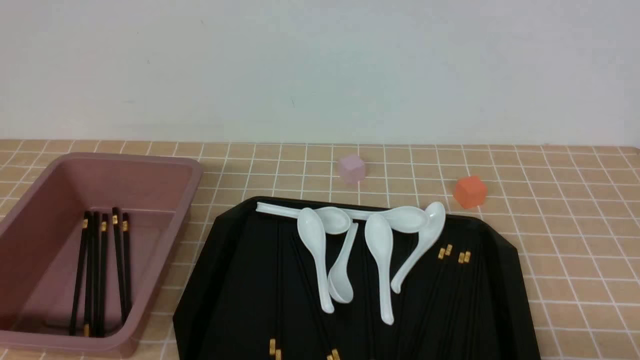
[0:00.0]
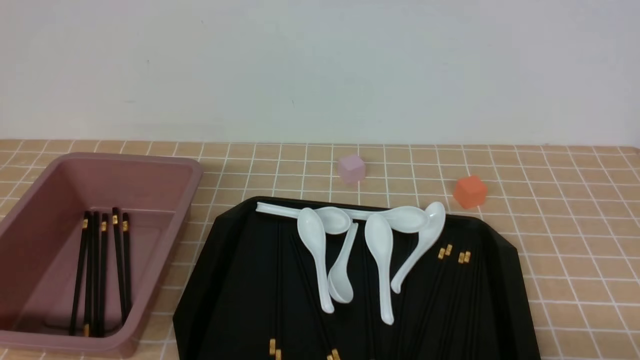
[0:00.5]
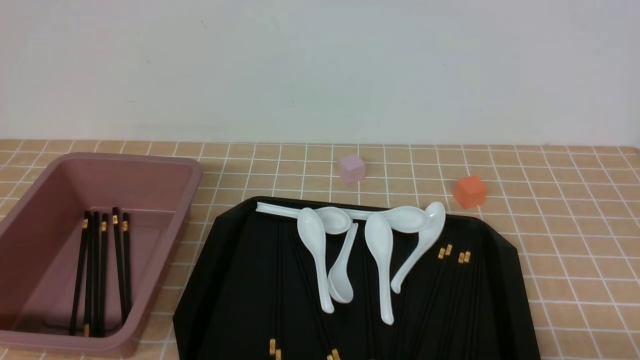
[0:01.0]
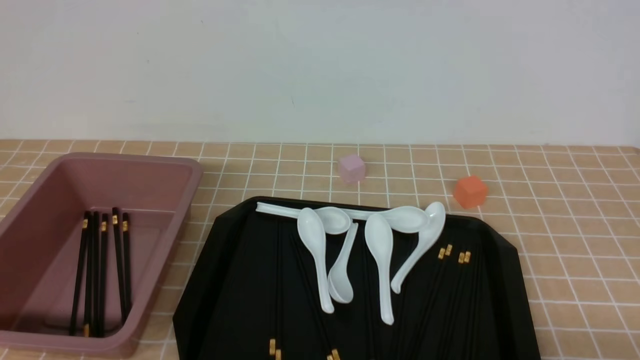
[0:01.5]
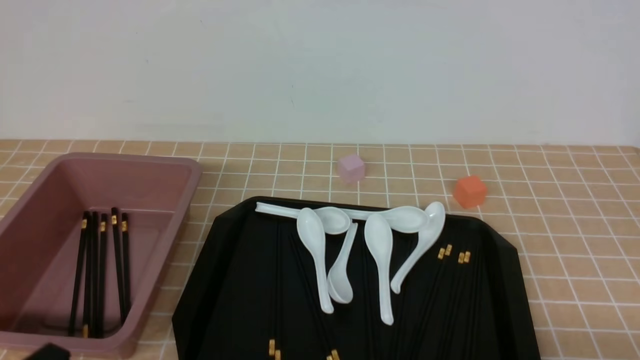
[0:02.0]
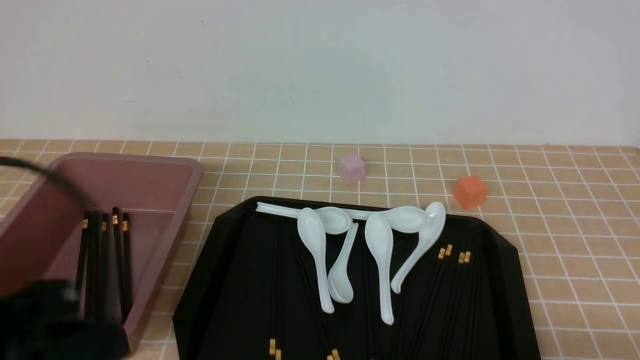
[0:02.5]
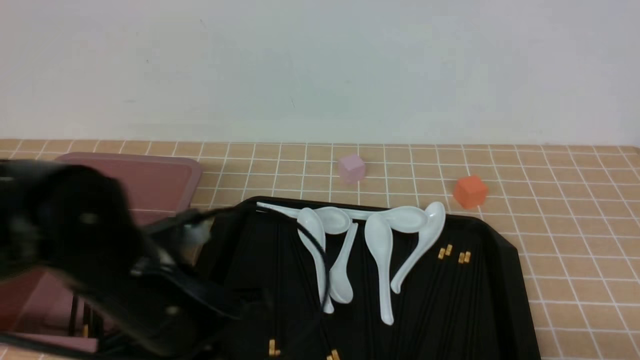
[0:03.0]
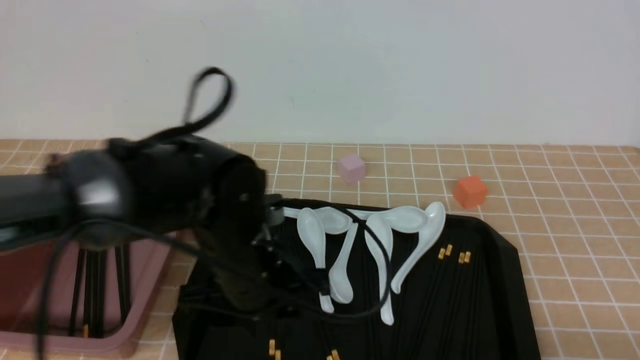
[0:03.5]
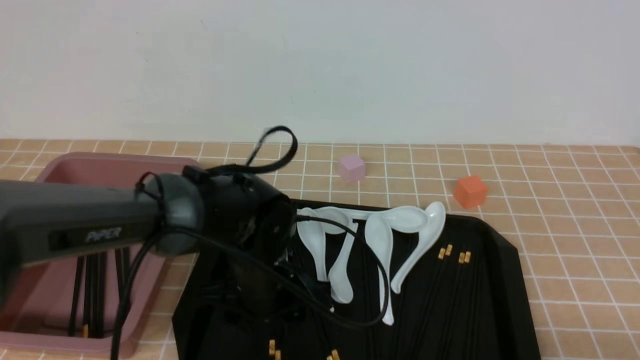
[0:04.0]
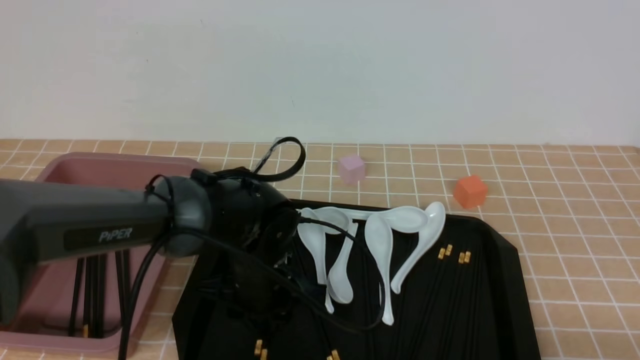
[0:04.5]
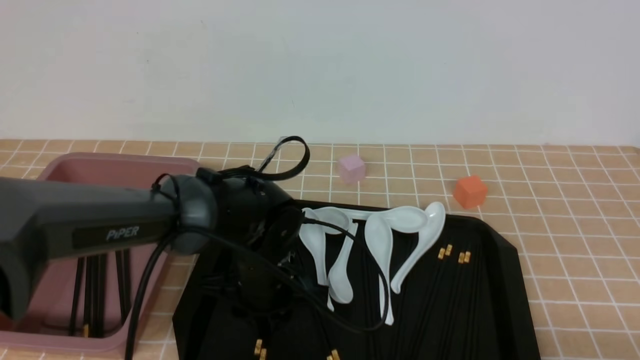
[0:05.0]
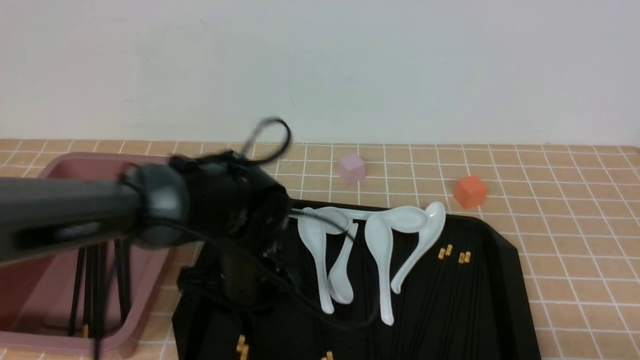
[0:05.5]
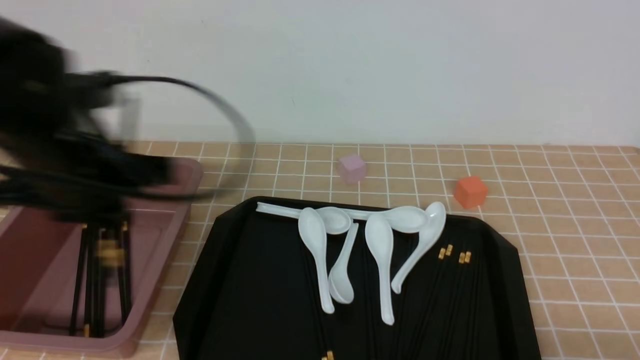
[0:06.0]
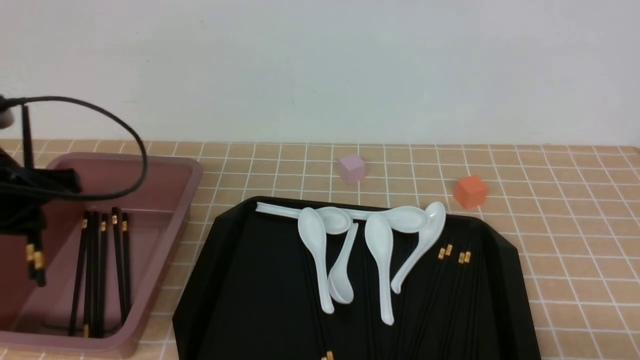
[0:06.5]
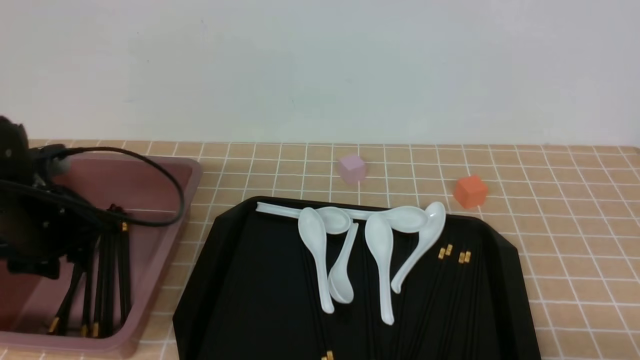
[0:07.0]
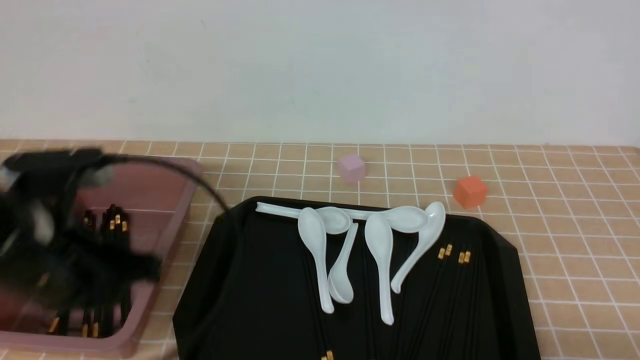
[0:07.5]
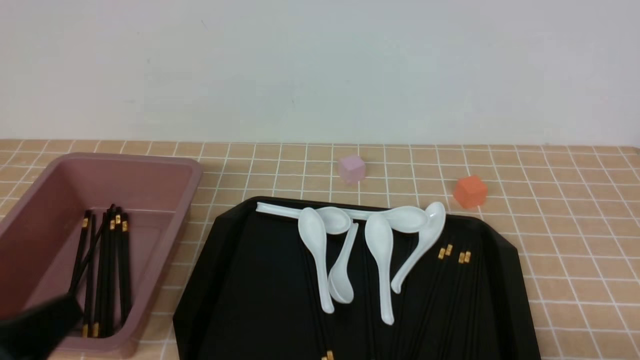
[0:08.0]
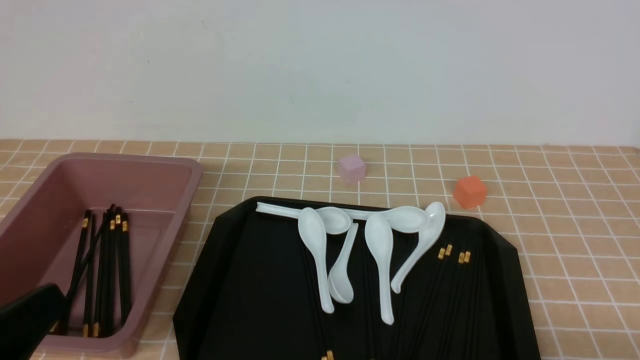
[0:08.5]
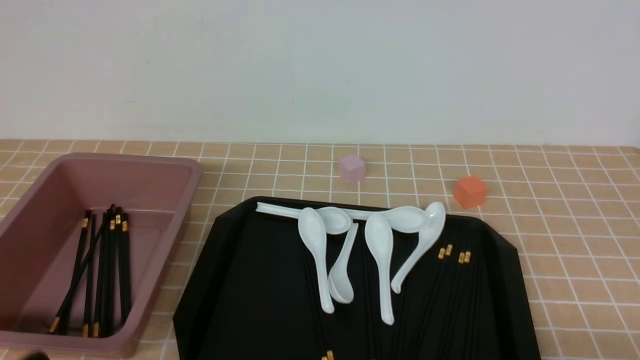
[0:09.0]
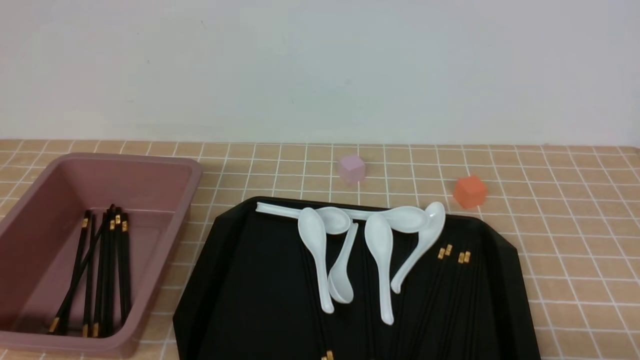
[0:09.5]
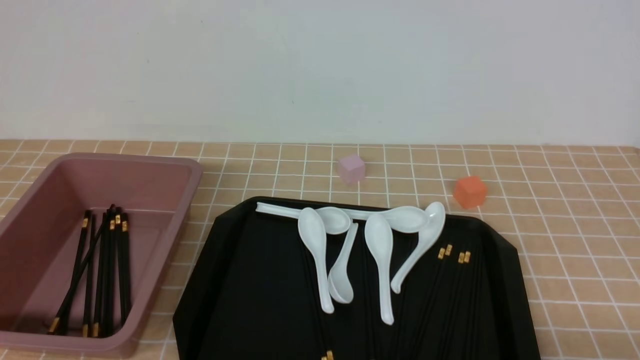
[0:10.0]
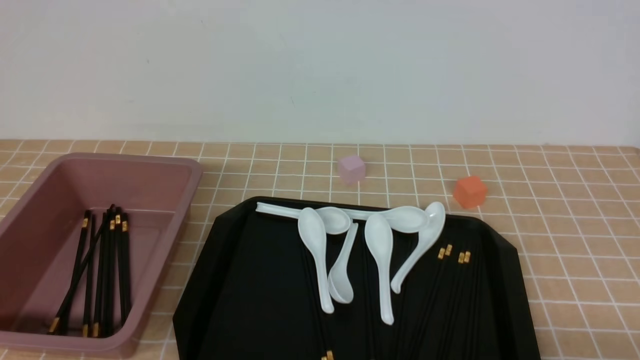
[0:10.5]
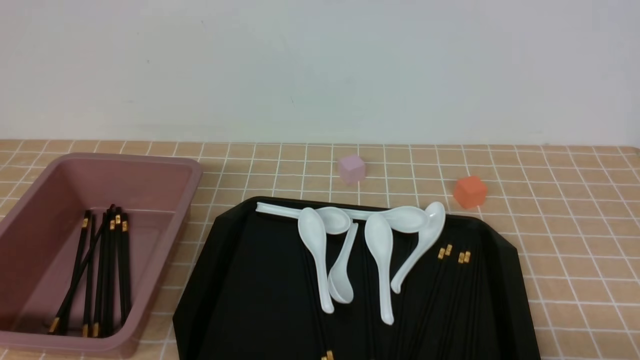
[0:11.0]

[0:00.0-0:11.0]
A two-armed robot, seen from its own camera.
Step, 0:00.0 to 0:05.5: use the left arm to grab a pair of chopsticks.
Step, 0:06.0 to 0:07.0: use the left arm to put the chopsticks into the lunch box.
0:02.0 to 0:03.5: The left gripper travels forward and to the right by roughly 25 cm, and opens.
0:03.5 to 0:05.5: The left gripper ends up some 5 cm from where it was, and closes.
0:05.5 to 0:07.5: The left gripper shifts roughly 20 cm to the left, upward and backward, and opens and closes again.
0:07.5 to 0:09.0: The left gripper shifts about 20 cm backward.
